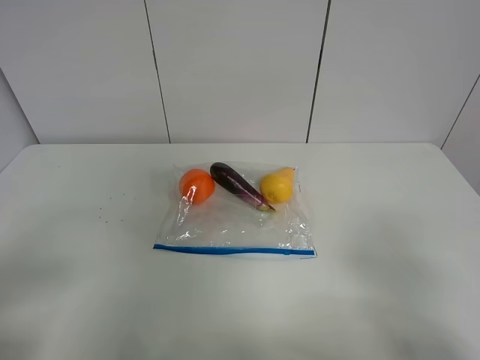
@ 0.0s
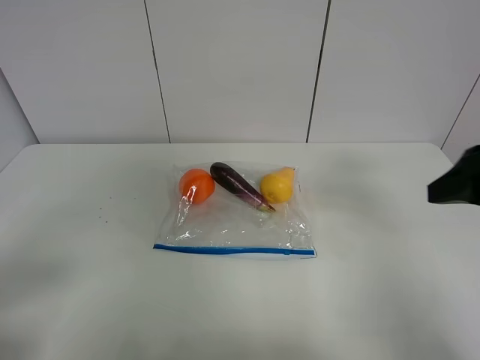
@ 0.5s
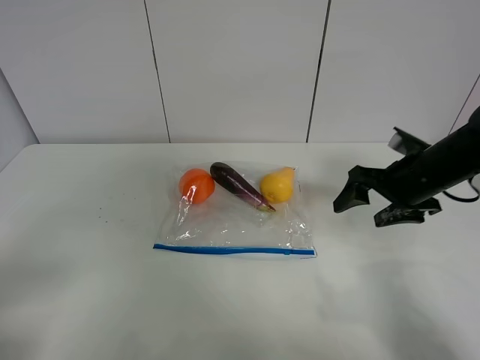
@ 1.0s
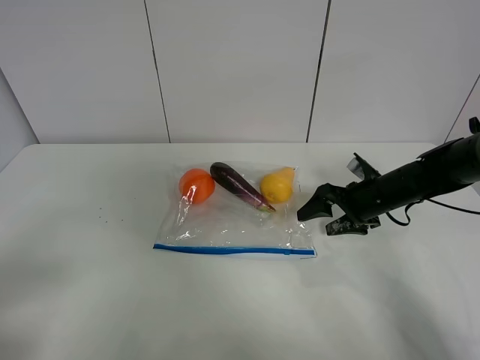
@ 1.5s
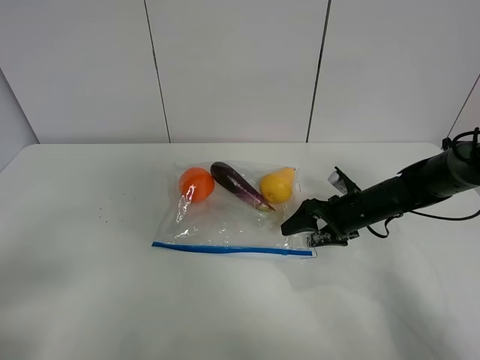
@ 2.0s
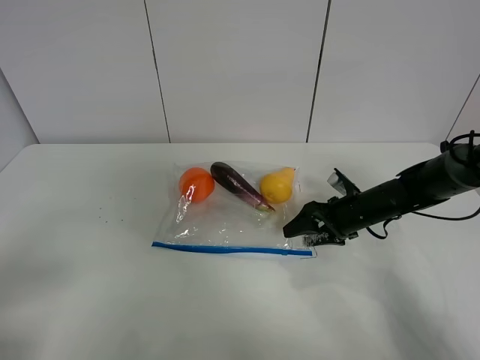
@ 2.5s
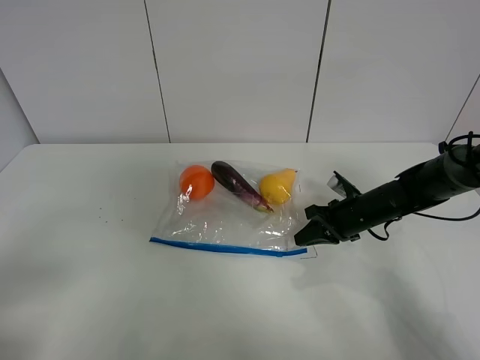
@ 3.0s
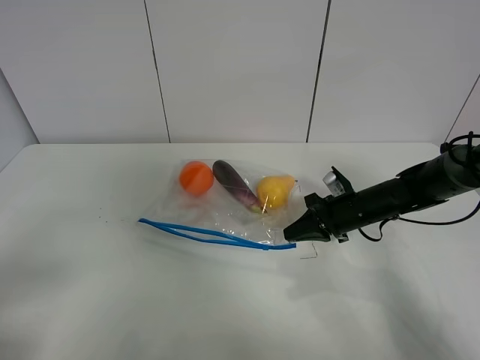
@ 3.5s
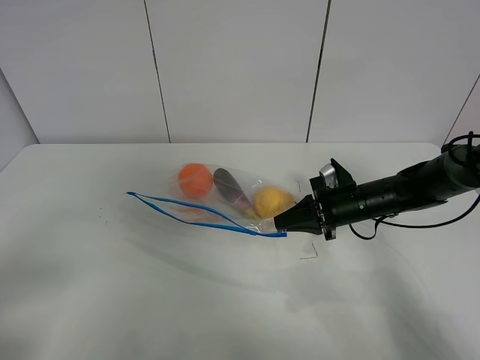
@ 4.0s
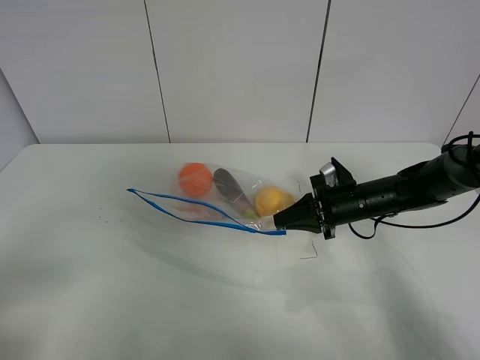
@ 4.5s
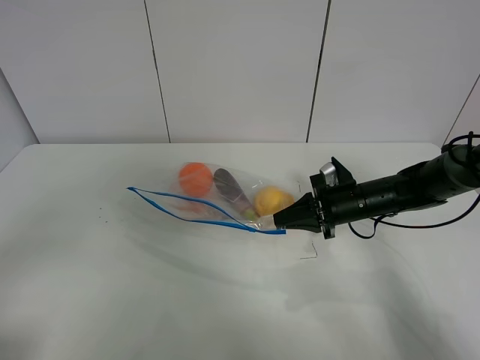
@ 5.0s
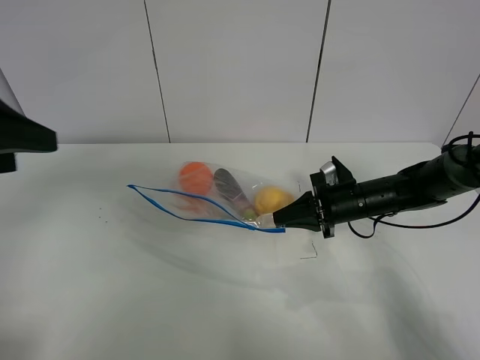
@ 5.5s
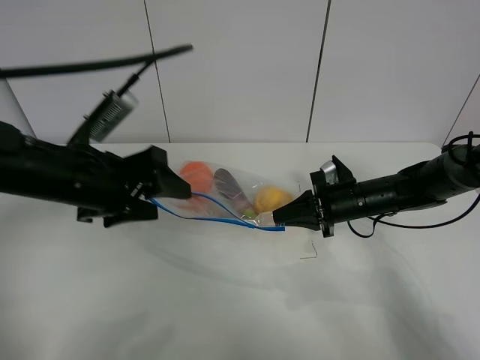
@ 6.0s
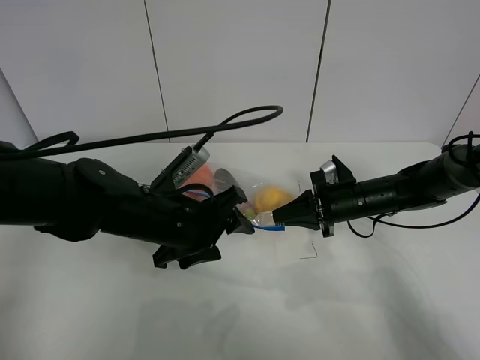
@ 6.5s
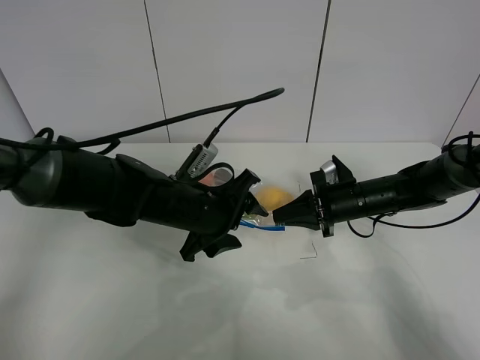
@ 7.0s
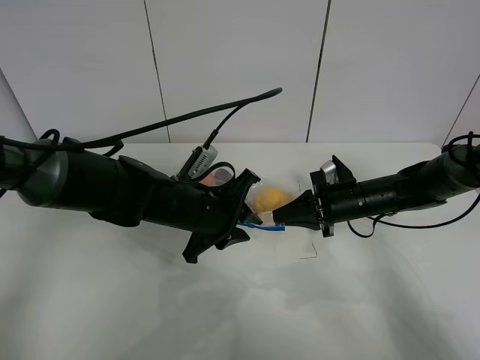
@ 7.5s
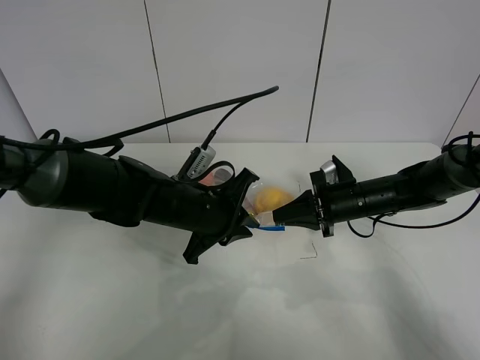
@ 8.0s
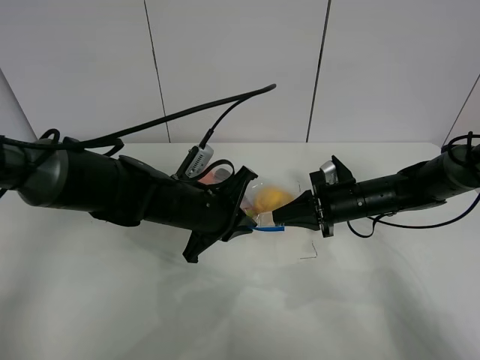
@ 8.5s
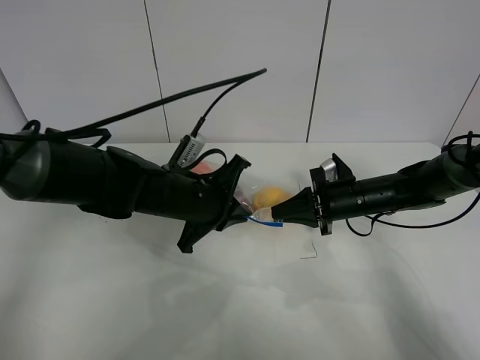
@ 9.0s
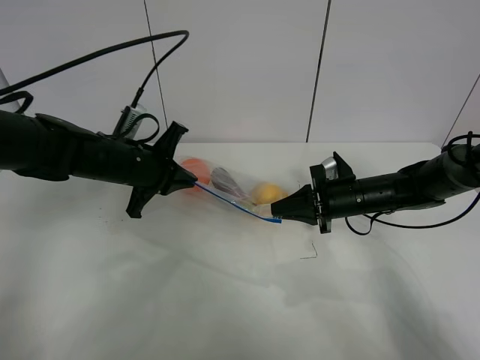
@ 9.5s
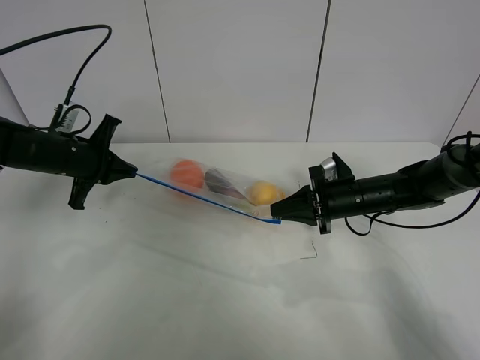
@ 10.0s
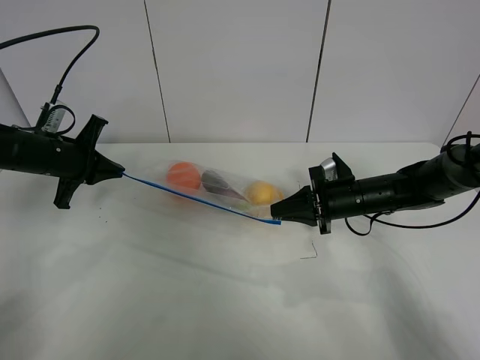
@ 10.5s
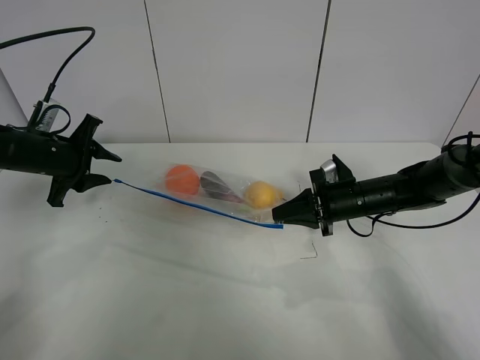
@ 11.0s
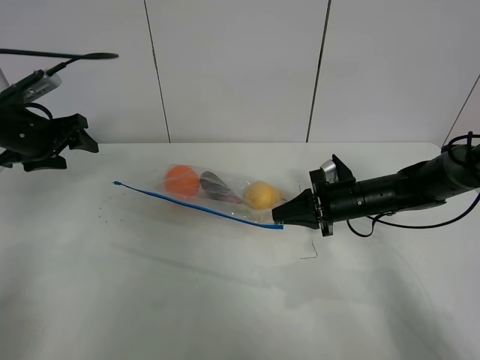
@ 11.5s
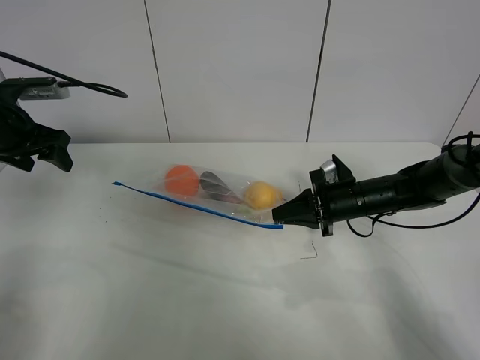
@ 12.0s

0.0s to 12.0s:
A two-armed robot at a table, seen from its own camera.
Step, 0.0s to 3.0s: Grasp the fruit bag with right gripper.
Step, 3.5s to 4.5s: Lift the fruit bag with your right gripper.
Step, 5.0s to 11.0s: Pull the fruit bag with left gripper.
0.0s to 2.0s: The right gripper goes roughly 40 cm forward and downward.
2.0s to 4.0s: The right gripper closes up.
4.0s to 6.0s: The left gripper heads forward and to the right, covering about 25 cm.
6.0s to 8.0s: The left gripper heads to the right and downward, covering approximately 15 cm, and closes.
8.0s to 10.0s: The left gripper moves to the left, approximately 20 cm.
10.0s to 12.0s: The left gripper heads upward and to the left, covering some 10 cm, and opens its fingers.

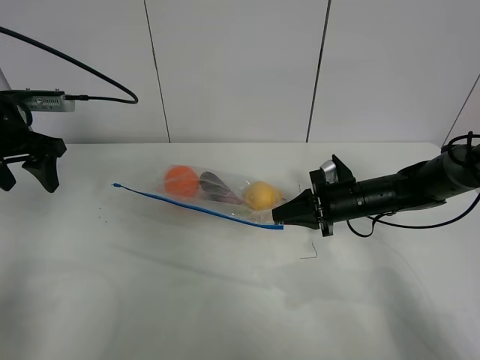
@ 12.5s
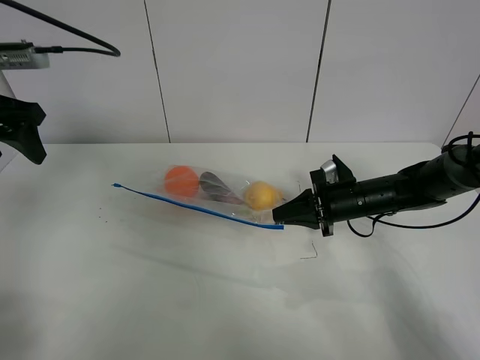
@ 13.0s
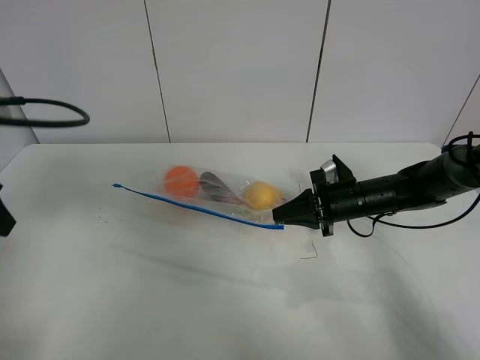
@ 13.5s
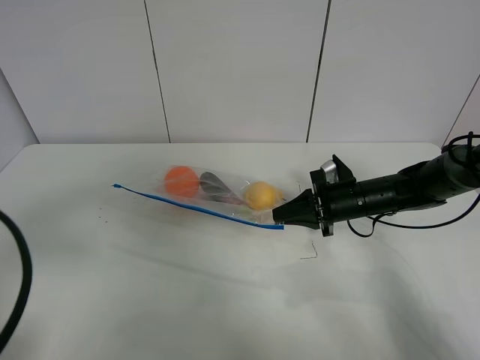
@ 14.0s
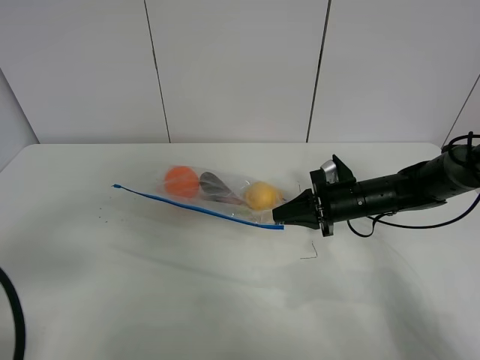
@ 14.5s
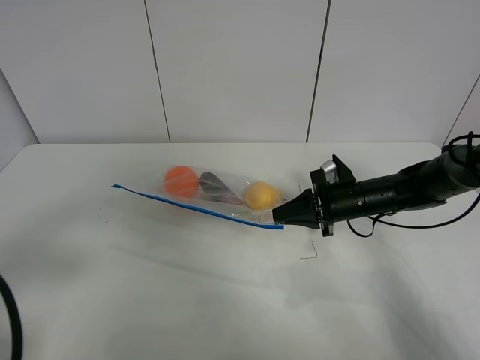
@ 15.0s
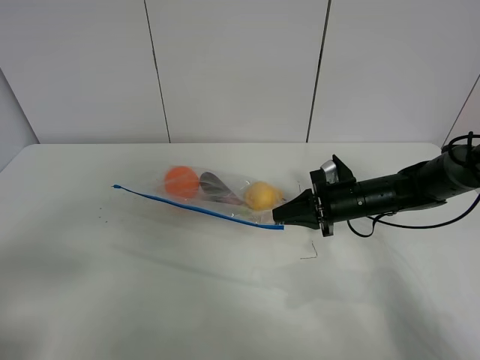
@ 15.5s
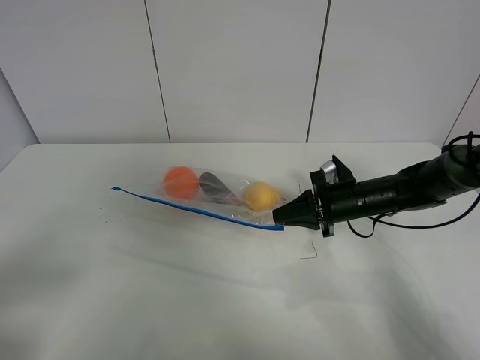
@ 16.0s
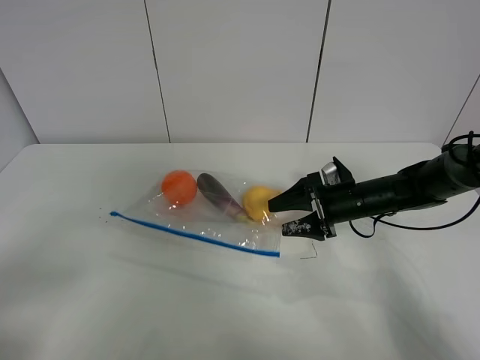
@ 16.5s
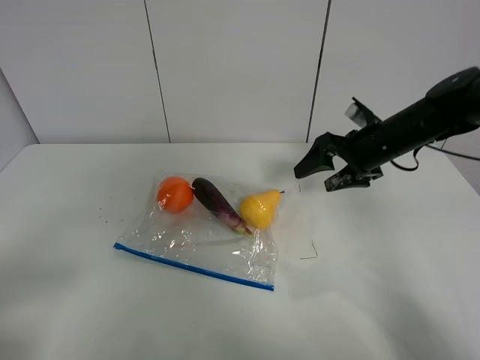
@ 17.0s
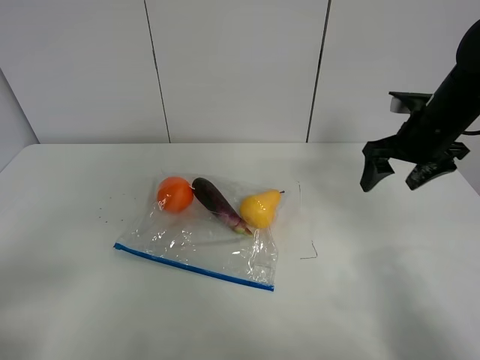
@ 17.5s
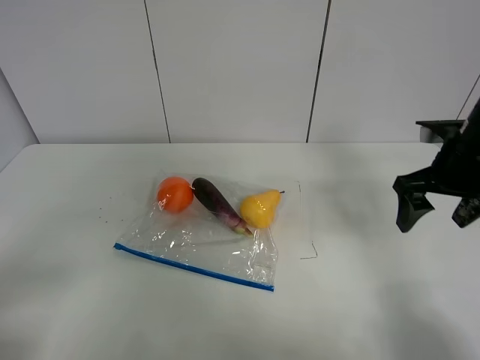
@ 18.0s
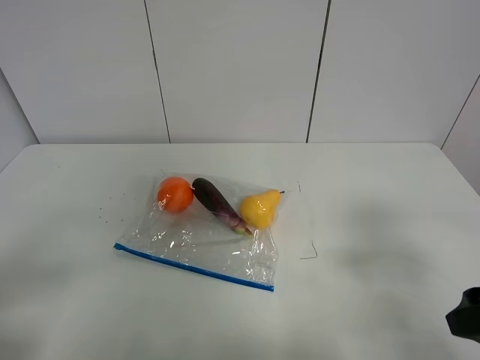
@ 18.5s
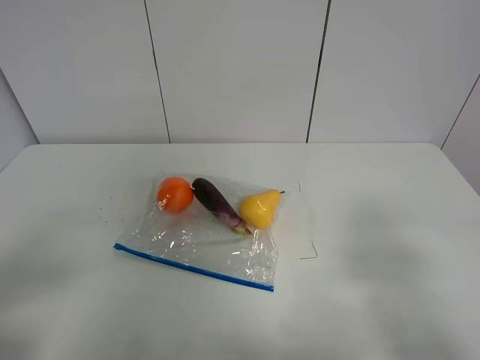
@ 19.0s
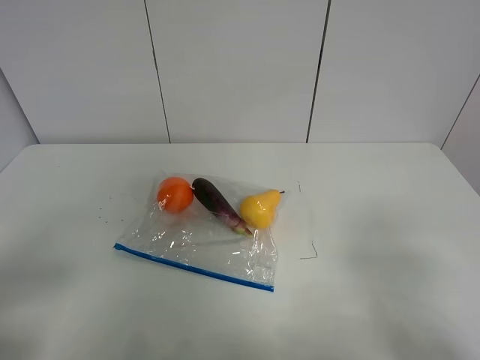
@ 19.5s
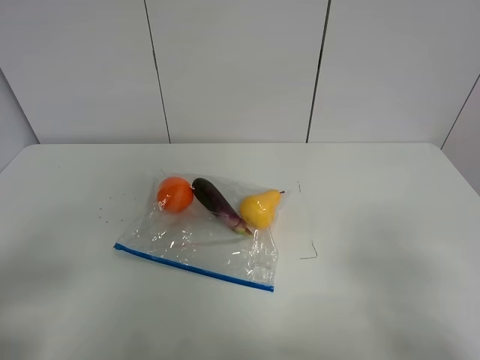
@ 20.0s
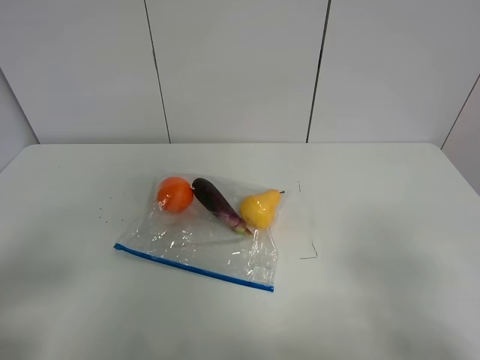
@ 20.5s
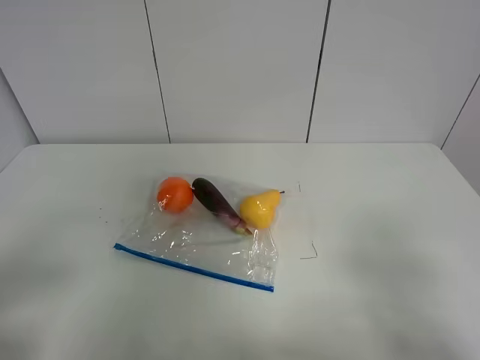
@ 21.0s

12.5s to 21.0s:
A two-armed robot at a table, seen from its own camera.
12.5s to 14.5s: The left gripper shifts roughly 30 cm backward.
14.5s to 16.5s: The left gripper heads backward, covering about 5 cm. The right gripper opens its fingers.
16.5s to 19.0s: The right gripper moves backward and upward, roughly 35 cm.

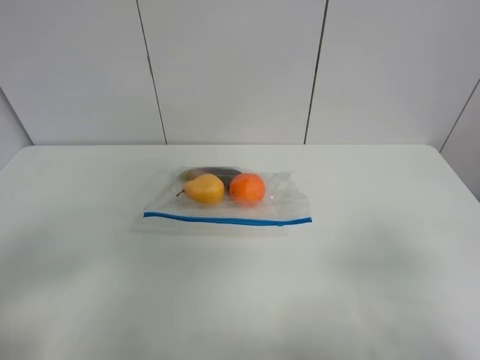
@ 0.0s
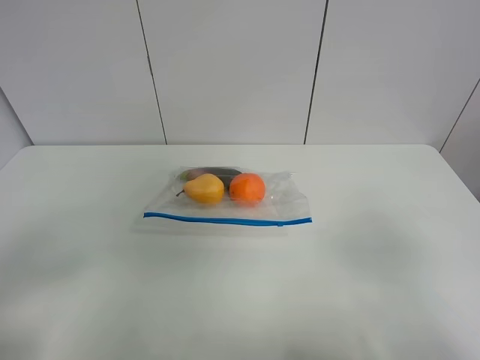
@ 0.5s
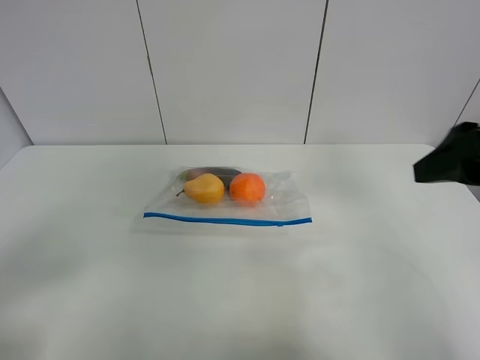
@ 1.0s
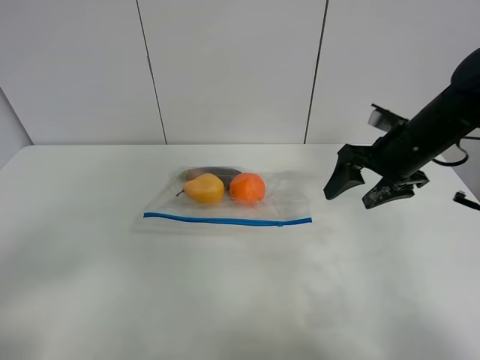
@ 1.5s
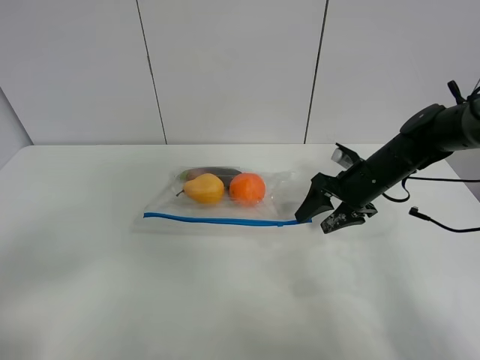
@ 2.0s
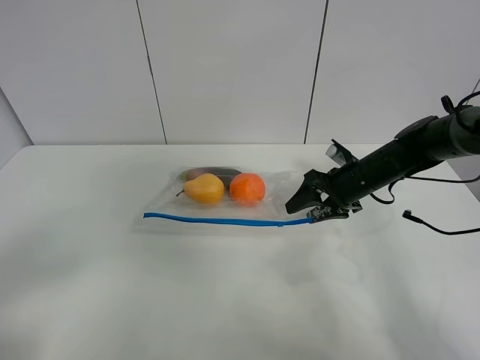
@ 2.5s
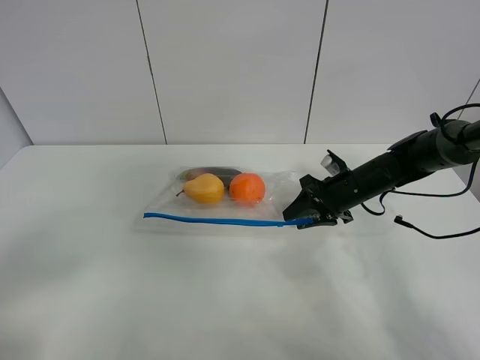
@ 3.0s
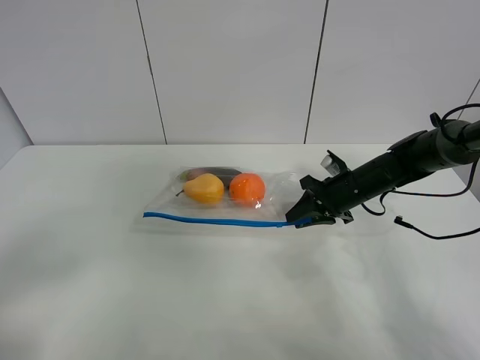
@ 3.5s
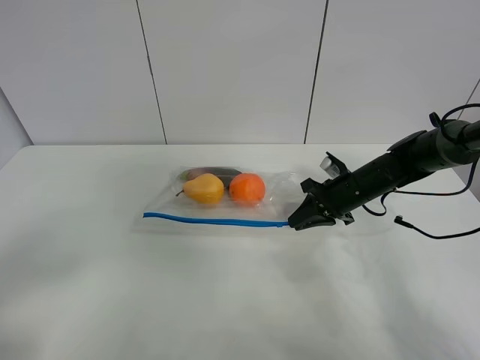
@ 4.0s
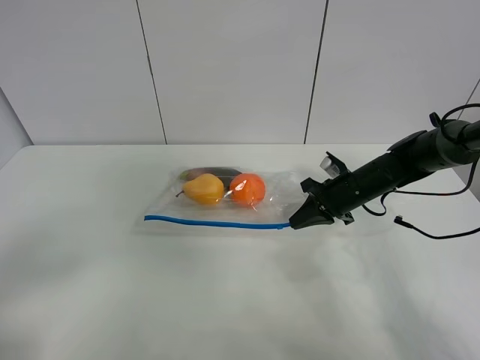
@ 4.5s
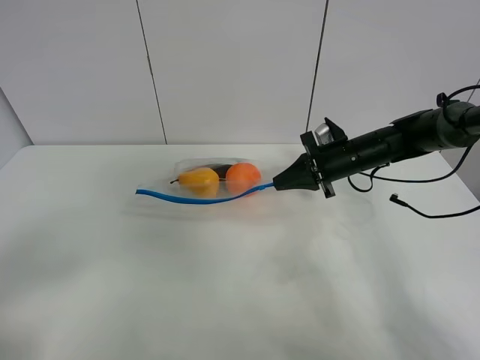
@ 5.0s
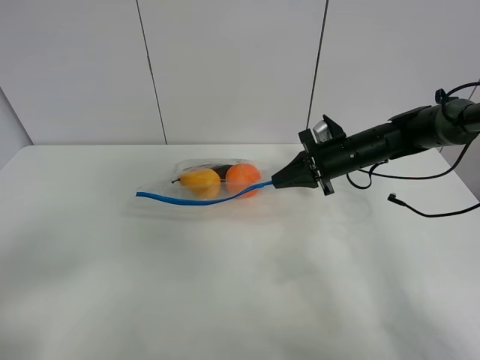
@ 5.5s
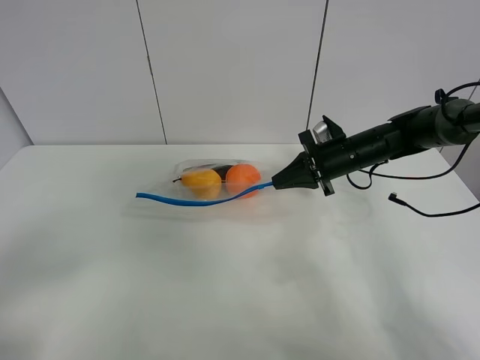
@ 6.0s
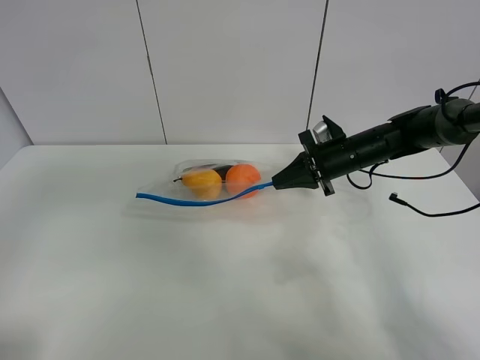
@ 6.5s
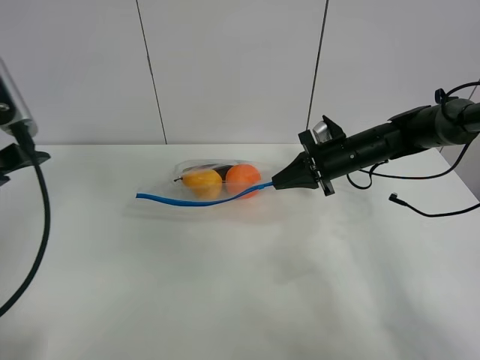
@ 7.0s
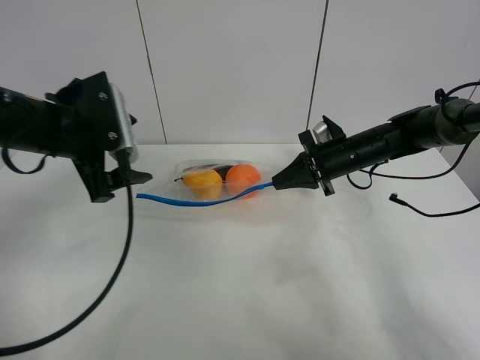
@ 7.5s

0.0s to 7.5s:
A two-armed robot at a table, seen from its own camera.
Step, 0.0s to 4.5s: Grasp the fruit bag with right gripper.
Step, 5.0s to 5.5s: Lift the fruit bag with your right gripper.
0.0s to 2.0s: The right gripper heads forward, covering about 35 cm.
2.0s to 4.0s: The right gripper closes.
4.0s to 5.5s: The right gripper travels upward by approximately 5 cm.
5.5s to 7.5s: The left gripper moves forward, about 30 cm.
